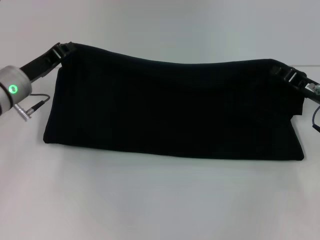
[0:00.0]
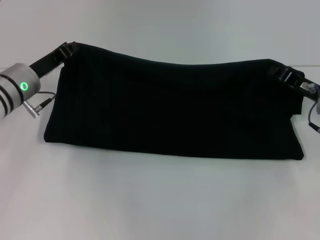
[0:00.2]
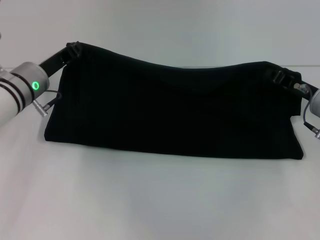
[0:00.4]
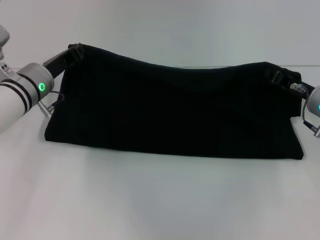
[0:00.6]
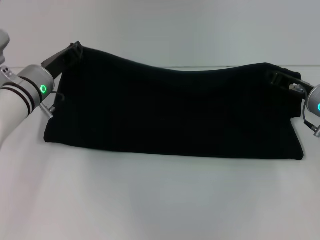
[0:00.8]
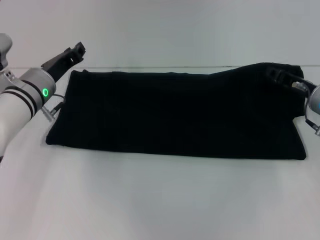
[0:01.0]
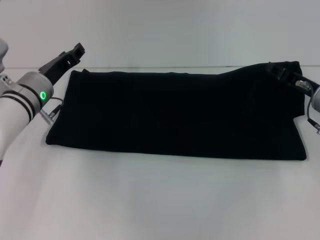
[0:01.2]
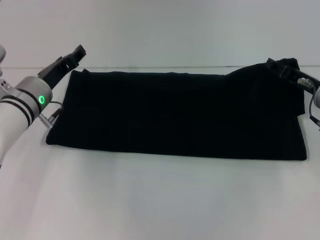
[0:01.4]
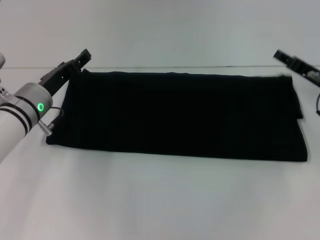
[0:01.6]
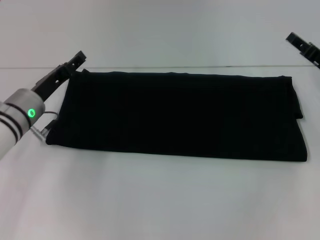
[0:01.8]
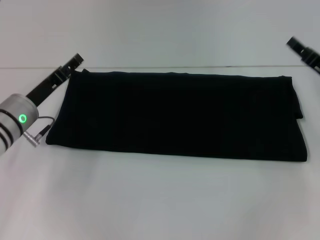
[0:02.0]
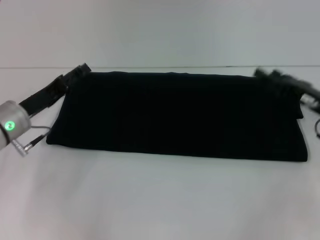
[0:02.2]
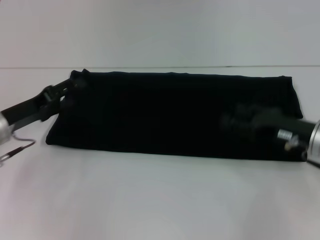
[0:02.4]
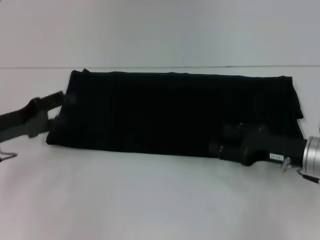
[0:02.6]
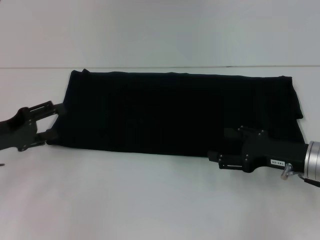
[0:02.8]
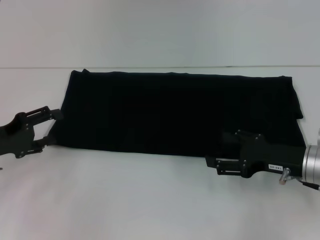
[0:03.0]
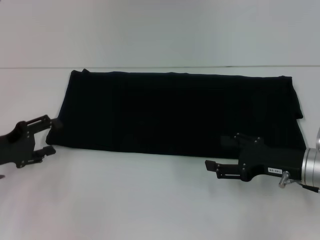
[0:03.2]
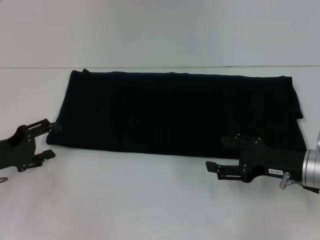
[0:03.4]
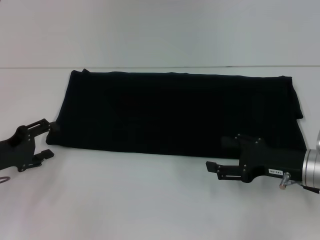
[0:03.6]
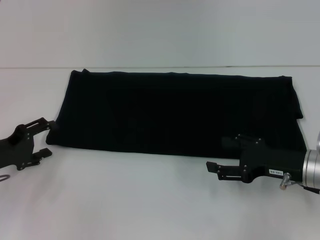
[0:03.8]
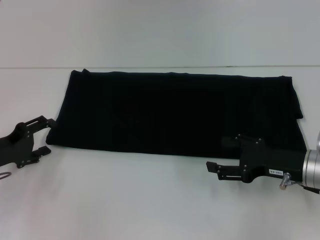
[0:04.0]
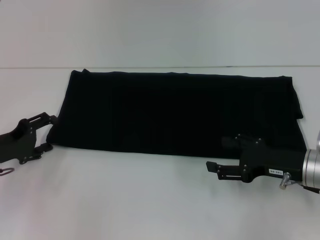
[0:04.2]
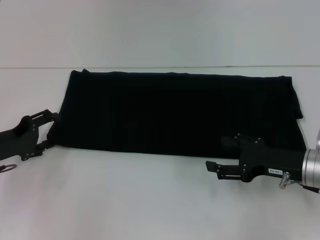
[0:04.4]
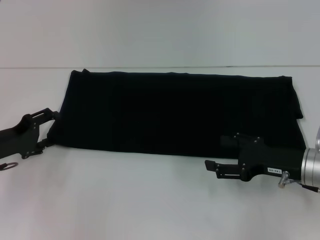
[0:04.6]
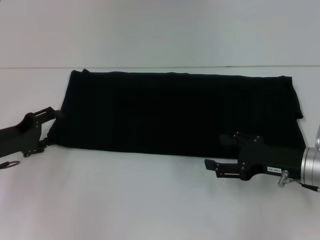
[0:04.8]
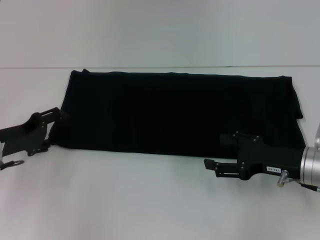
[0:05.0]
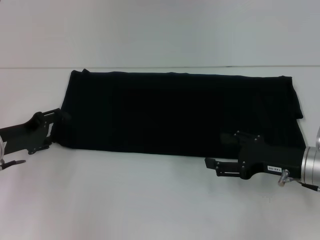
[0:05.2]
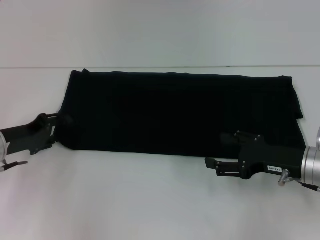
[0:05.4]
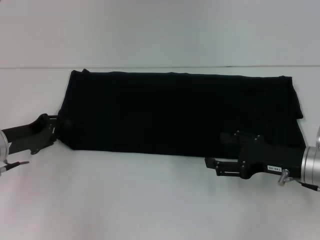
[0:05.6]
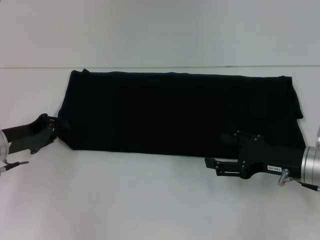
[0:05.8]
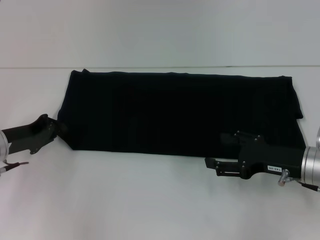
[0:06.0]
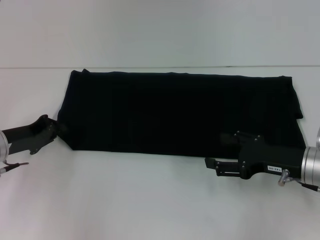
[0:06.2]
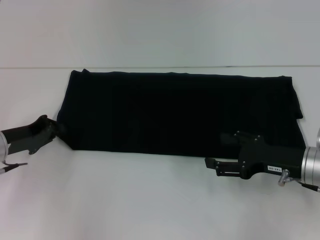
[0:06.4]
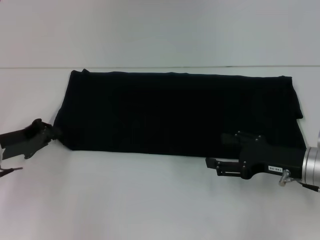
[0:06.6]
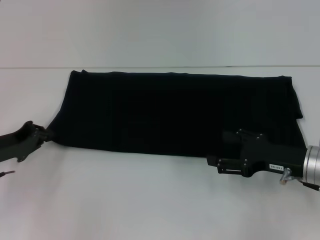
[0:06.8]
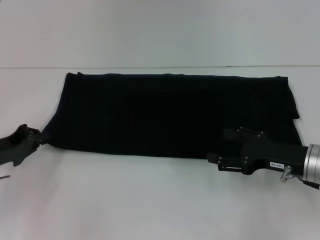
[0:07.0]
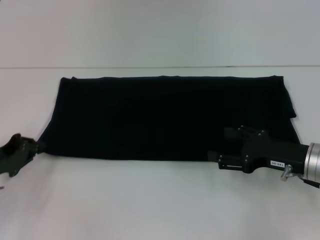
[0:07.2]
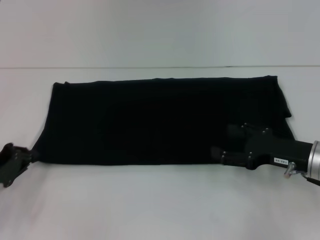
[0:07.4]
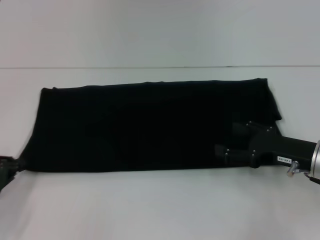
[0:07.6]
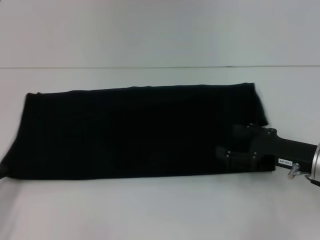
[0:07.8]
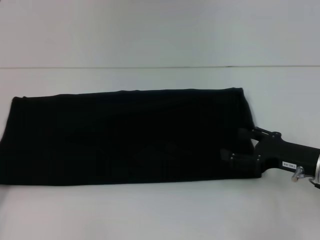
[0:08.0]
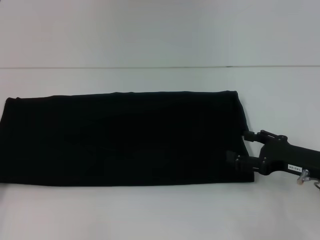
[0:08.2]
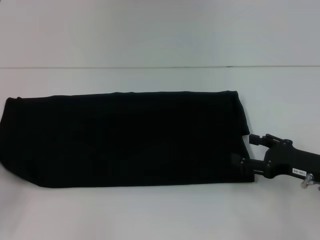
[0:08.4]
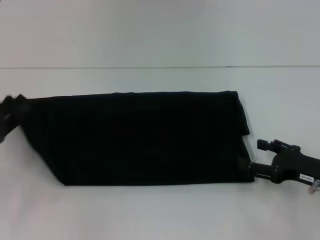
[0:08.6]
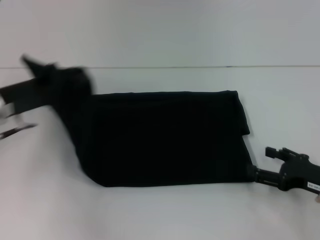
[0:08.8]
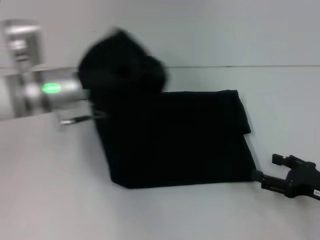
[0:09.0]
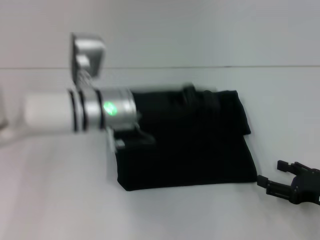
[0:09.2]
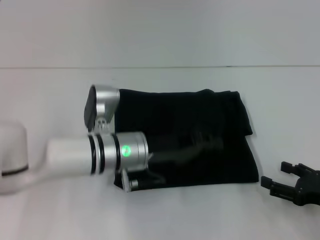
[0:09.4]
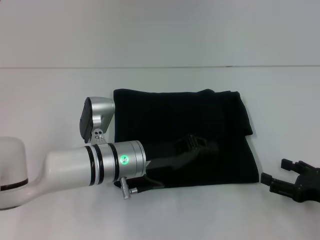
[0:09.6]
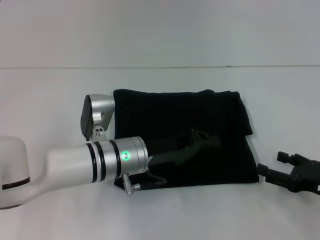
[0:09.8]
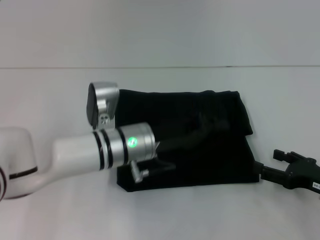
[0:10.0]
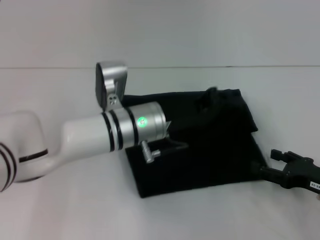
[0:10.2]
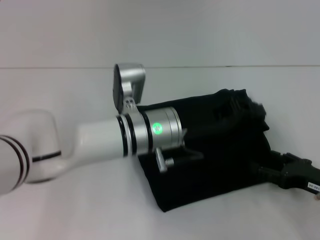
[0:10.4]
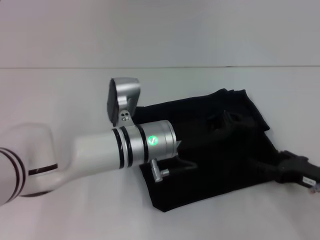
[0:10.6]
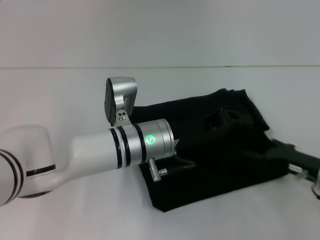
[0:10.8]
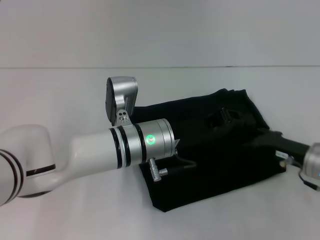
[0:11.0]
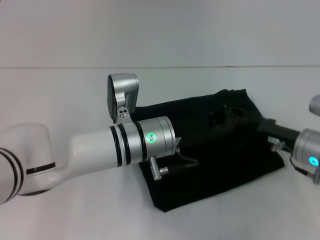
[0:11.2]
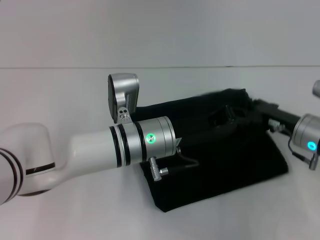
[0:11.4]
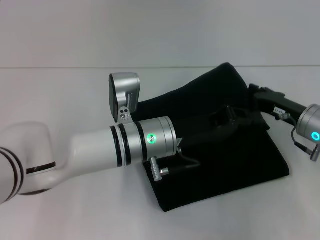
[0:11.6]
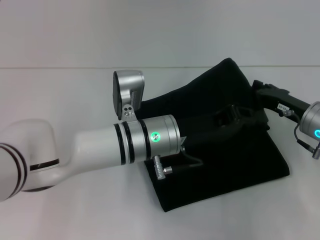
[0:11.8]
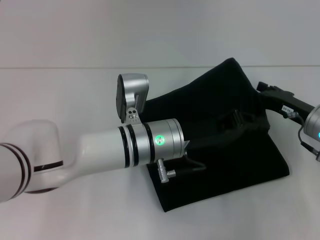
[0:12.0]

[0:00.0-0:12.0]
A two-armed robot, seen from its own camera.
Step, 0:00.0 to 0:02.0: Fold the clothes with your right hand.
0:00.0 to 0:01.6: The left gripper opens its fingers. Meanwhile the right gripper opens.
0:01.6 to 0:03.0: The left gripper shifts some 15 cm to the left and backward. The right gripper moves backward, about 10 cm.
0:03.0 to 0:04.4: There are only small adjustments of the grippers.
0:04.4 to 0:06.0: The left gripper closes its fingers.
0:06.0 to 0:07.6: The left gripper heads backward and to the left, covering some 10 cm.
0:07.6 to 0:09.0: The right gripper shifts roughly 5 cm backward and to the right; the left gripper heads to the right, forward and upward, covering some 25 cm.
0:09.0 to 0:10.4: The left gripper goes approximately 15 cm to the right.
0:10.4 to 0:12.0: The right gripper travels forward by roughly 10 cm.

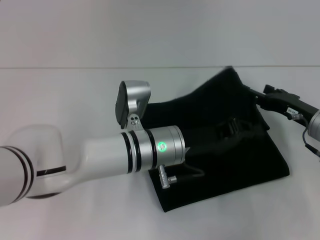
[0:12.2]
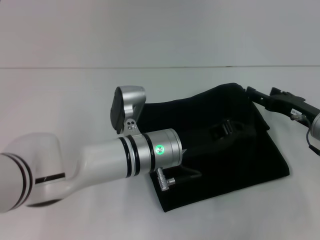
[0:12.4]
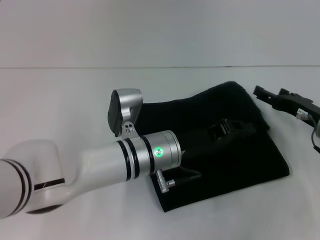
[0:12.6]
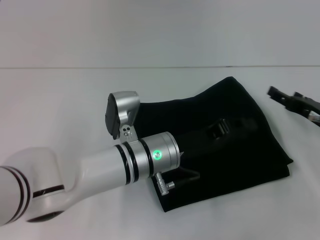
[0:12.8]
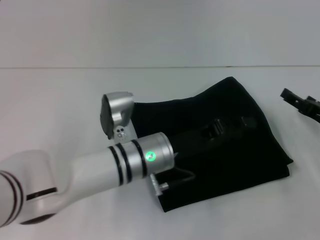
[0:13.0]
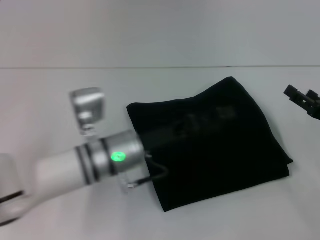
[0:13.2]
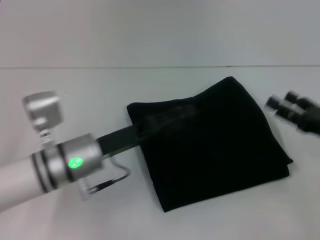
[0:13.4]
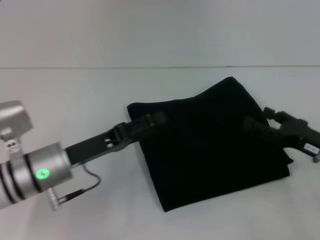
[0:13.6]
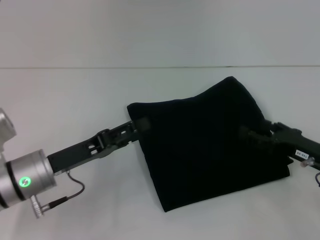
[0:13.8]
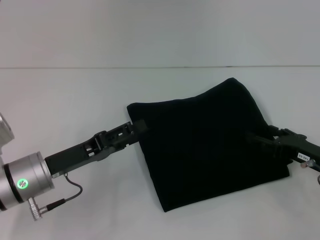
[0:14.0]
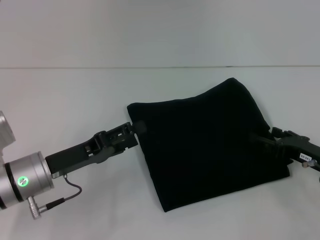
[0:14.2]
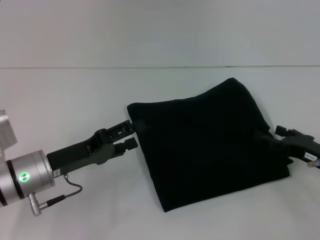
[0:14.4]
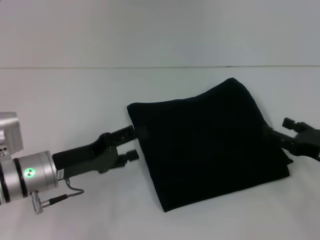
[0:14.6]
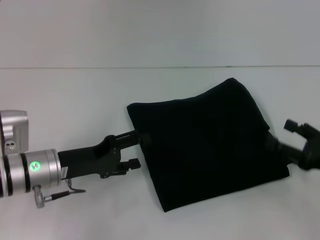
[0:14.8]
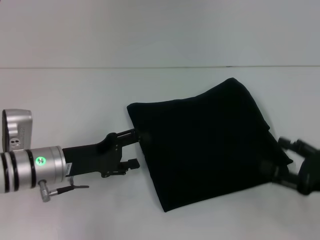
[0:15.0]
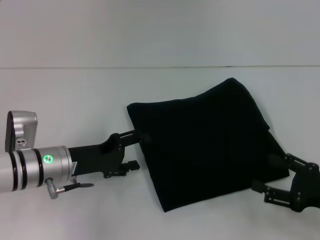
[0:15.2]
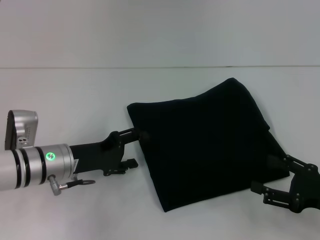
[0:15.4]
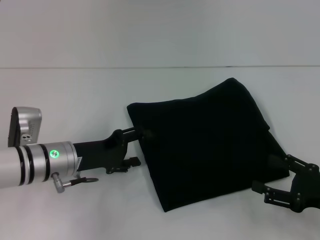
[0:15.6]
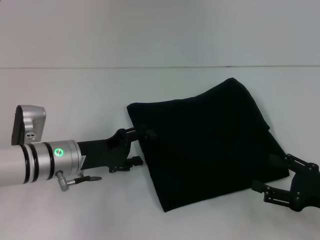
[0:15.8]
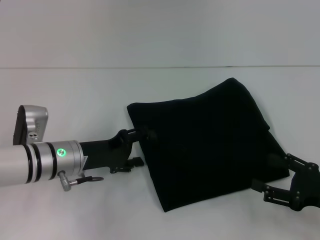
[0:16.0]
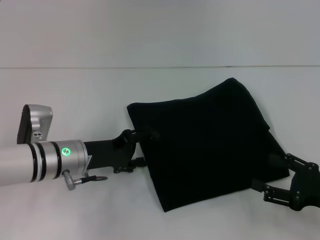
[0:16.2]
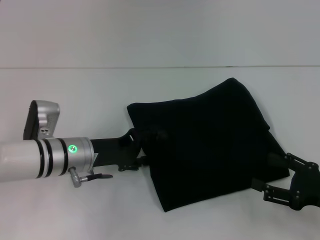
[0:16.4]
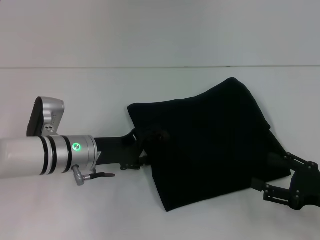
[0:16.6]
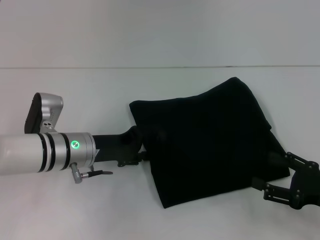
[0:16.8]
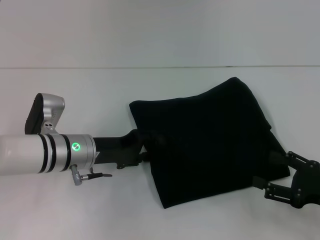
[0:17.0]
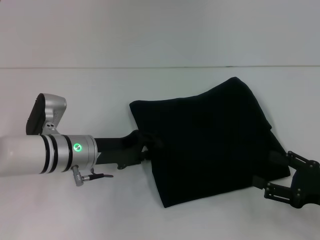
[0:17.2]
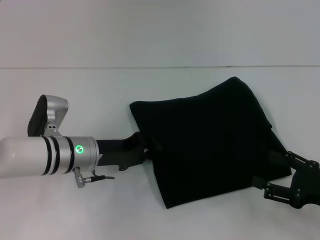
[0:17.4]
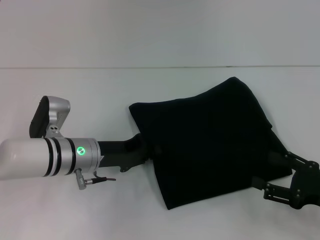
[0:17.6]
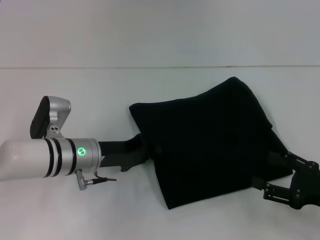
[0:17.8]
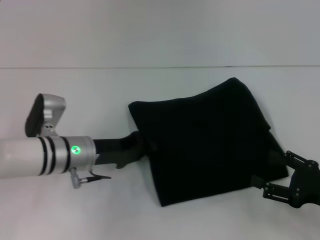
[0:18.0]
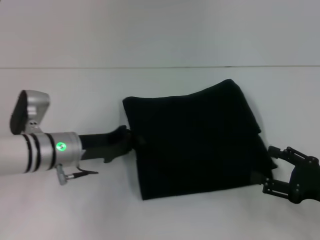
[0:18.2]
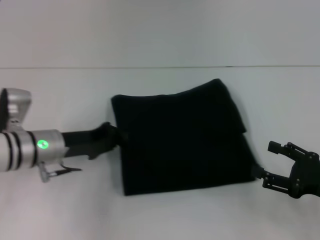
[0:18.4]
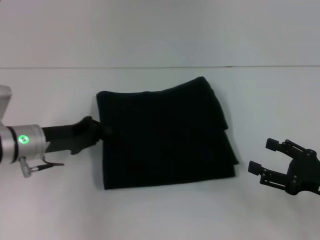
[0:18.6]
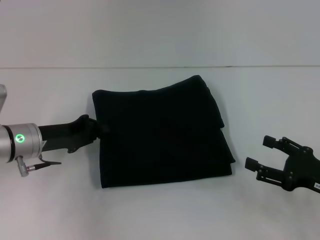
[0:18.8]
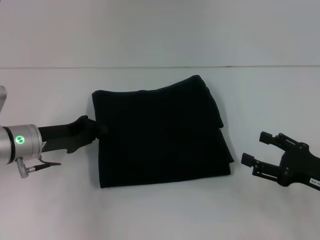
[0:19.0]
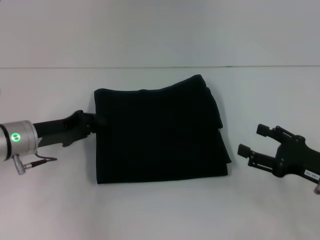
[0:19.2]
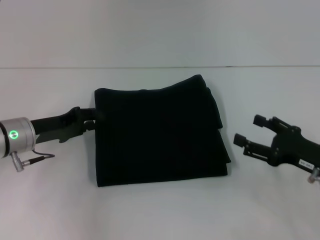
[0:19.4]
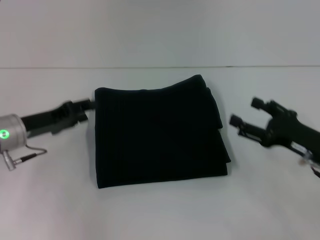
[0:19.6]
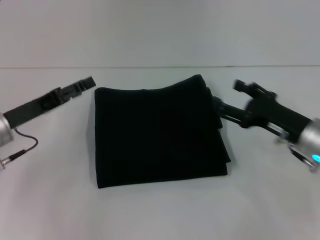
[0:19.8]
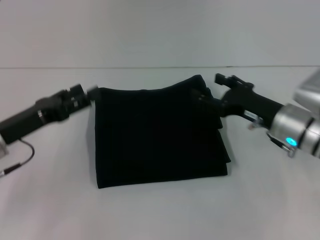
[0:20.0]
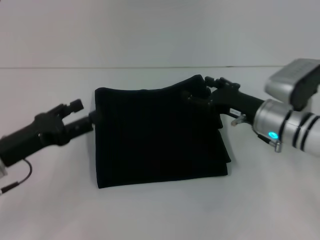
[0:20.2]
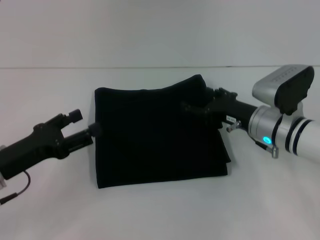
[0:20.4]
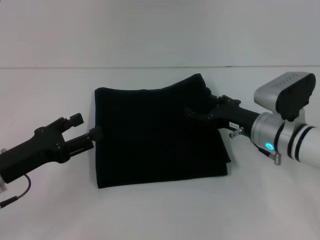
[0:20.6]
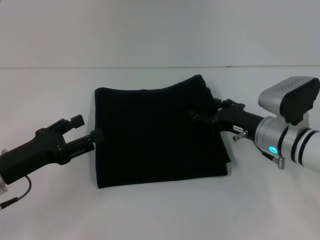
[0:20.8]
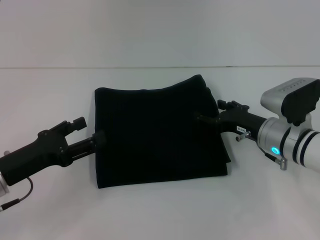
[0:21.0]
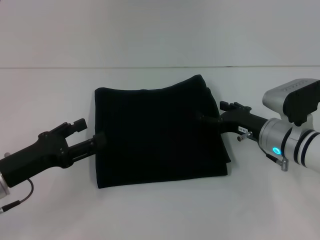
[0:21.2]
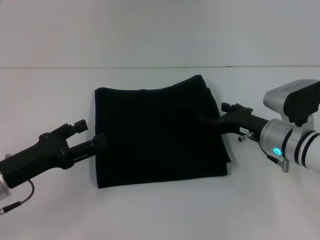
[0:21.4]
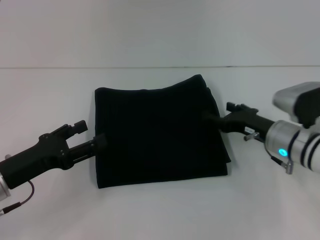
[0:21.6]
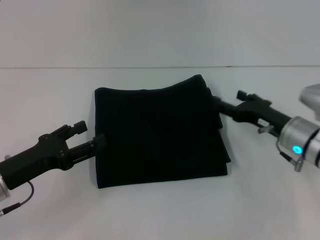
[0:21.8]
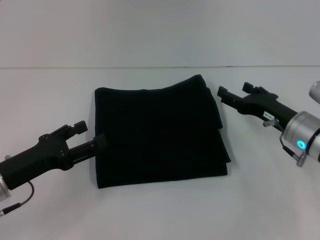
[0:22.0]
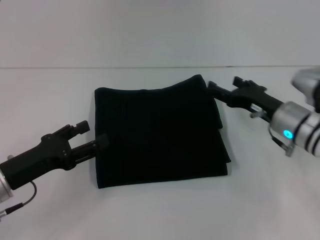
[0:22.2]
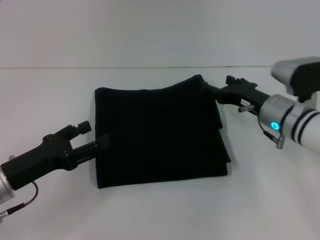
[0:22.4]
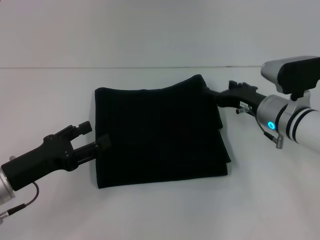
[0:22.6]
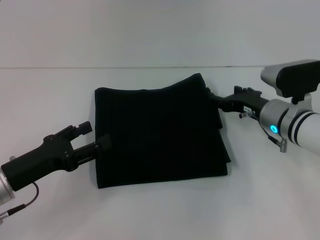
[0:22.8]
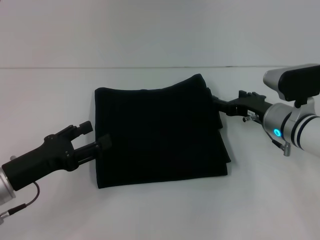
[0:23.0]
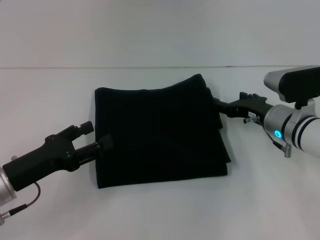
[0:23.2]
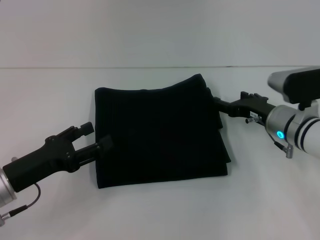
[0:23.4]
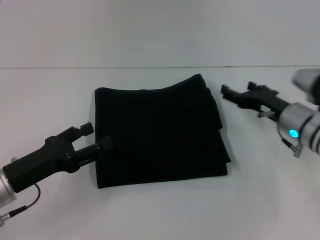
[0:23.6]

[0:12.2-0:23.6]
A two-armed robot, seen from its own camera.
0:12.2 to 0:13.6: The right gripper moves backward, about 5 cm. Meanwhile the left gripper moves to the left, roughly 15 cm, and opens its fingers.
0:13.6 to 0:15.0: The right gripper travels backward by roughly 5 cm.
0:15.0 to 0:16.4: There are only small adjustments of the grippers.
0:16.4 to 0:17.8: The left gripper closes up.
0:17.8 to 0:19.4: The left gripper goes roughly 10 cm to the left, while the right gripper ends up approximately 5 cm from where it was.
0:19.4 to 0:20.8: The right gripper travels to the left and forward by about 10 cm; the left gripper travels backward by some 10 cm, and opens its fingers.
0:20.8 to 0:23.6: There are only small adjustments of the grippers.
